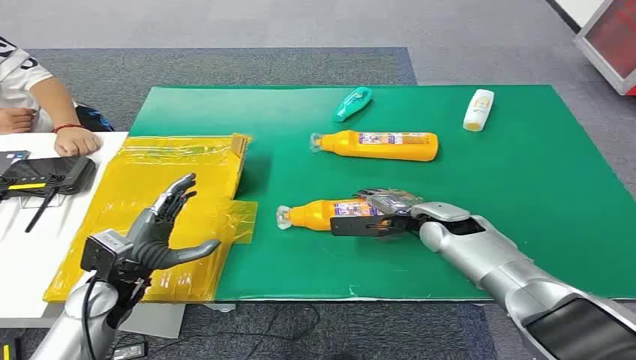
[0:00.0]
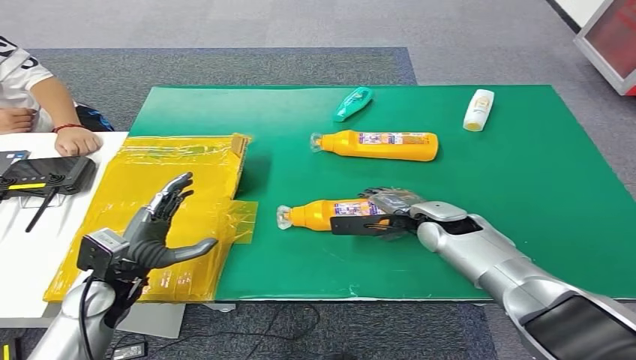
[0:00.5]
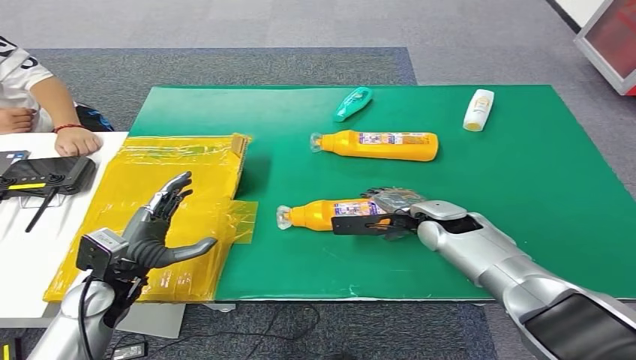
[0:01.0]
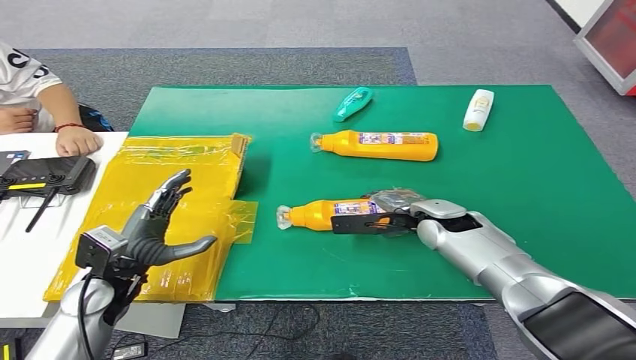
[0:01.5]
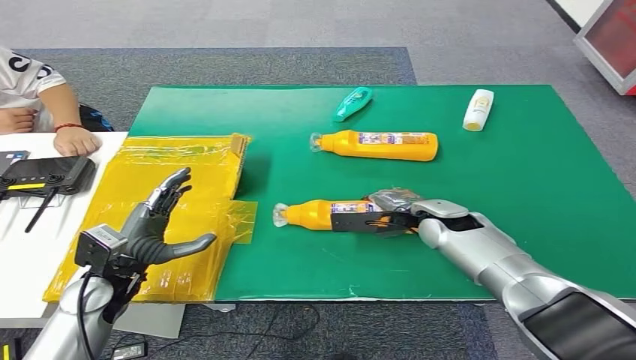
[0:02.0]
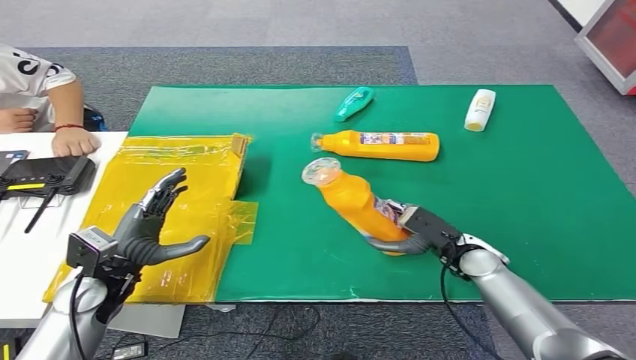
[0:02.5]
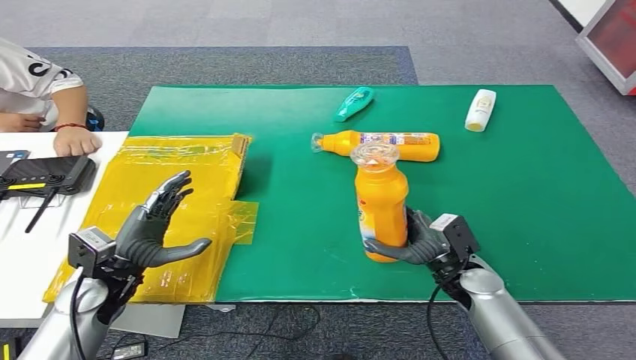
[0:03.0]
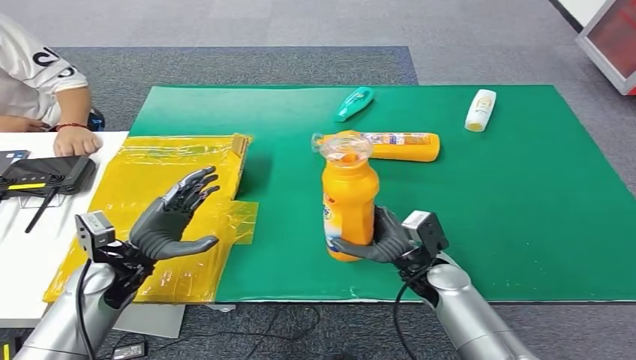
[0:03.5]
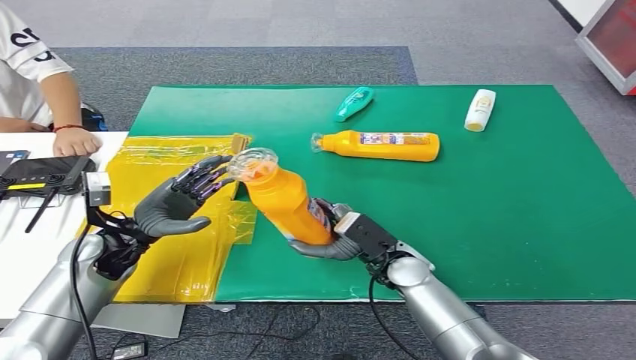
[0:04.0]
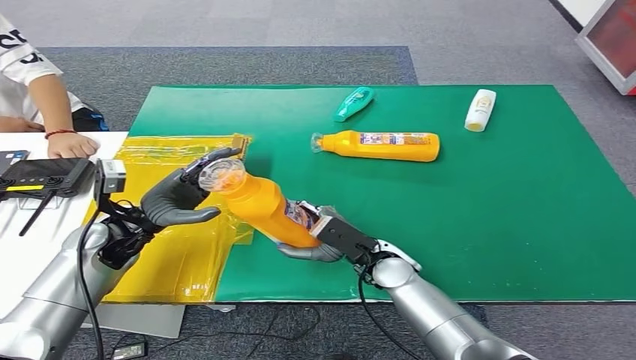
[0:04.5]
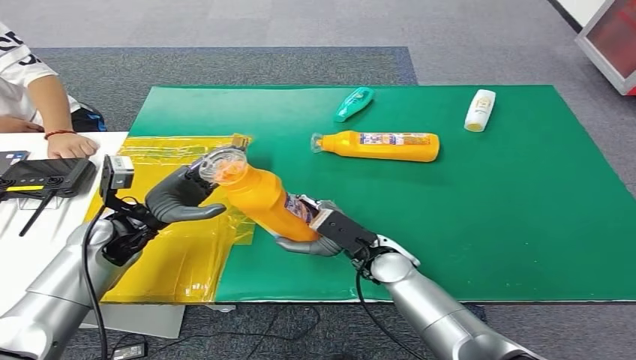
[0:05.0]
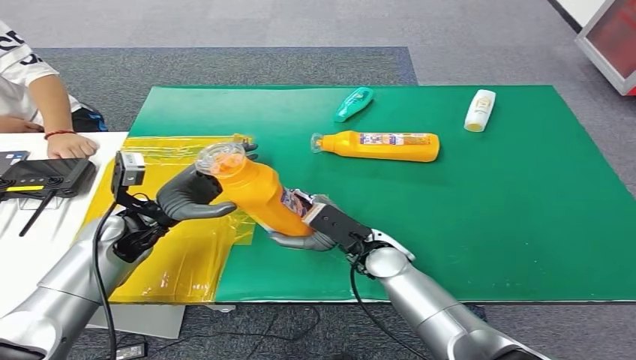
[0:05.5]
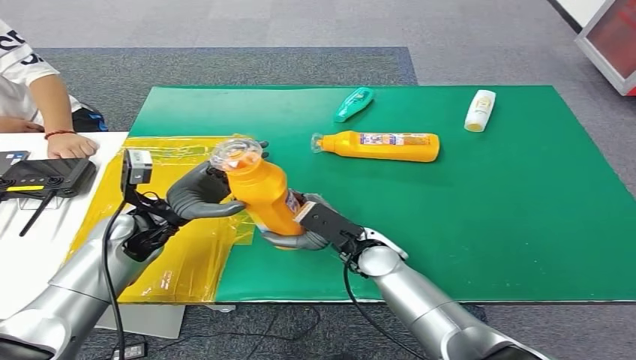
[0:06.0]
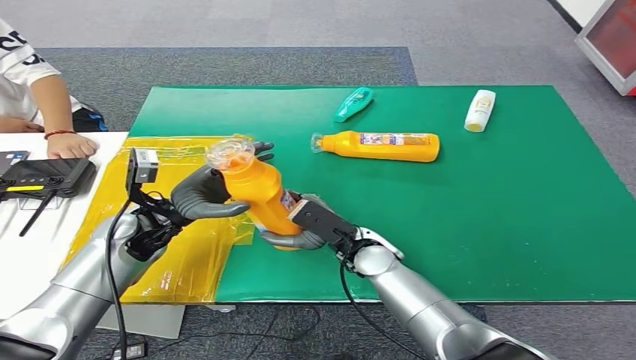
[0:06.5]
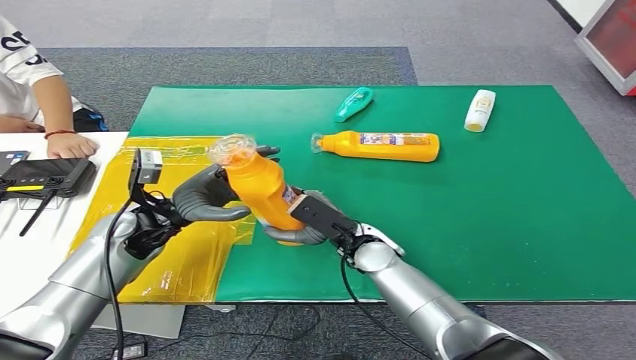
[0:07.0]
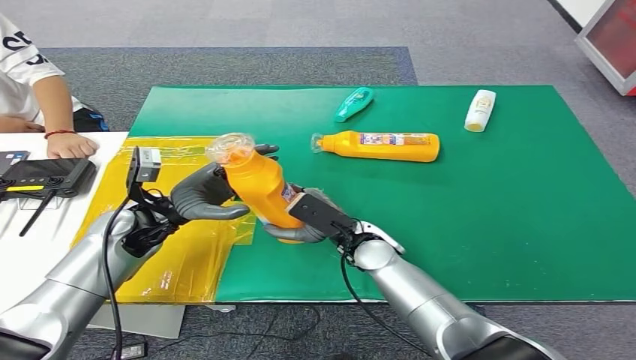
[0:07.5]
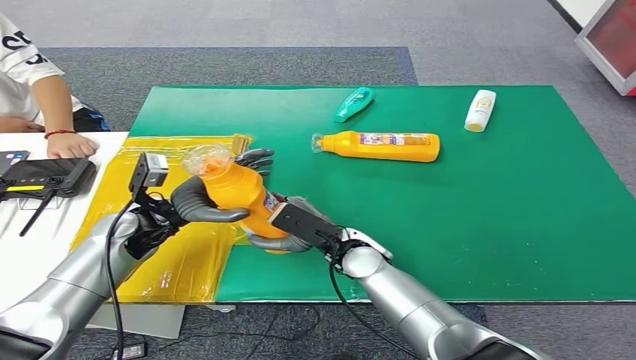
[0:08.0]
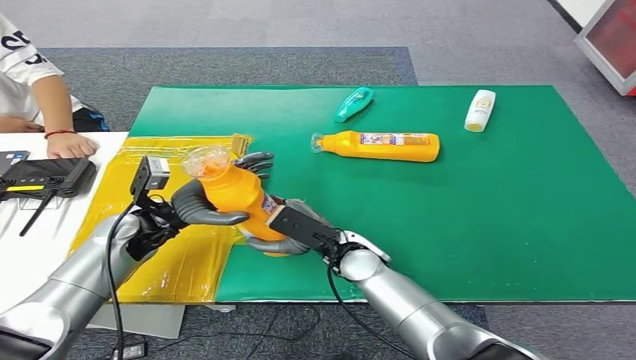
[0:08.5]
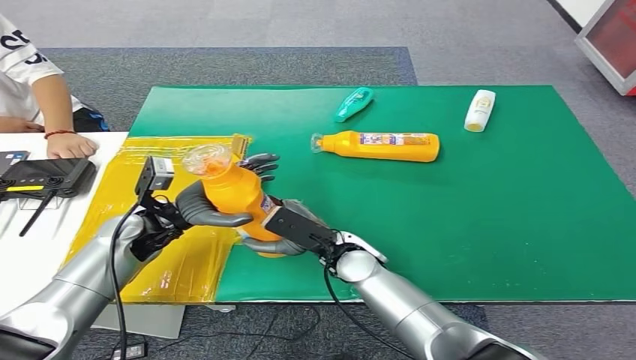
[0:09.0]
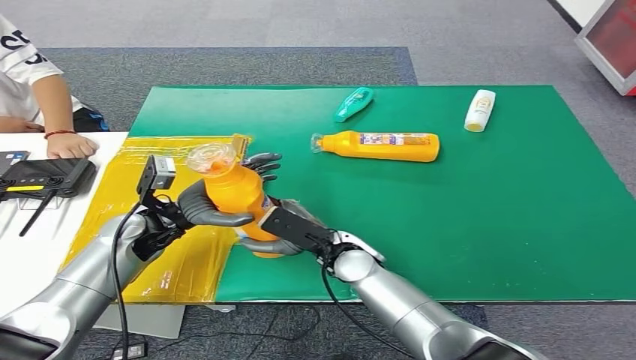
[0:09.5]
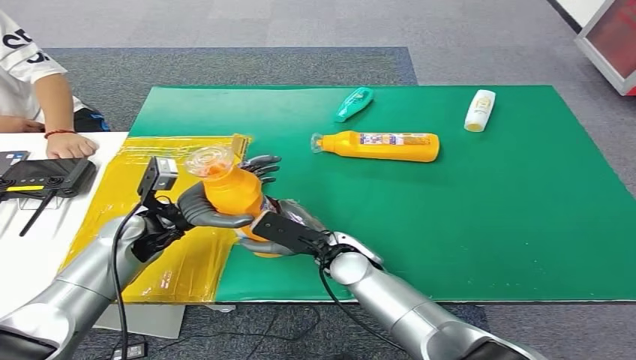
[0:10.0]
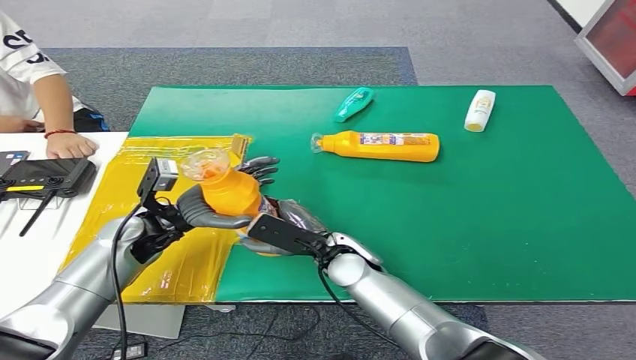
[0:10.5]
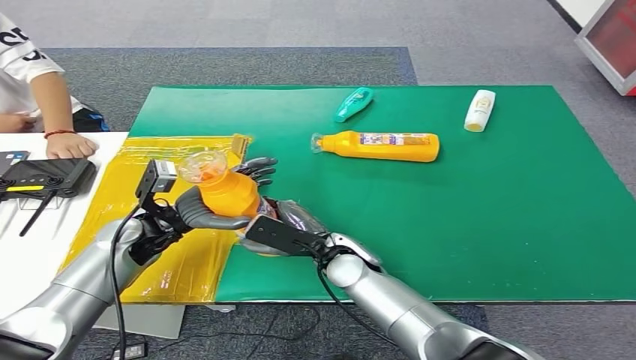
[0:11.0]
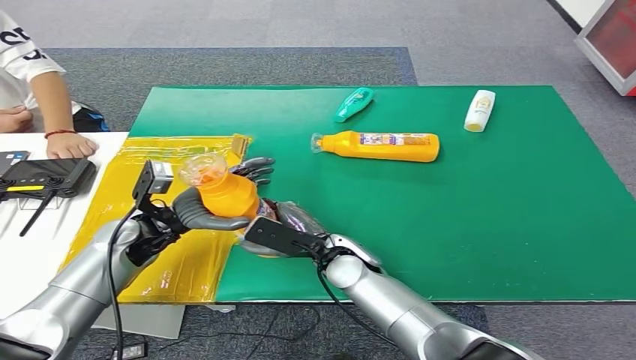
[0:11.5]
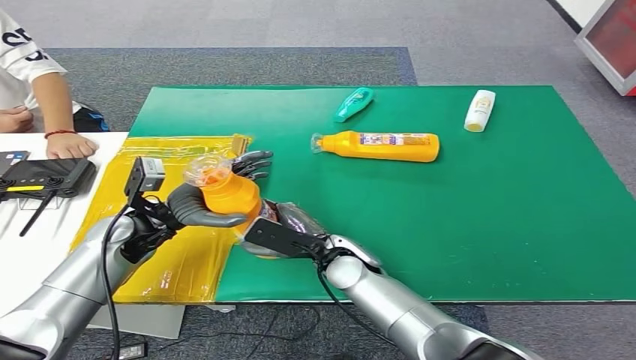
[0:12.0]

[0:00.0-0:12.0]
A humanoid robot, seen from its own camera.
Step, 0:00.0 to 0:02.0: Pick up the bottle from the table.
0:04.0 to 0:06.0: The left hand moves approximately 5 cm.
0:06.0 to 0:12.0: The hands stay close to where they were, moving slightly.

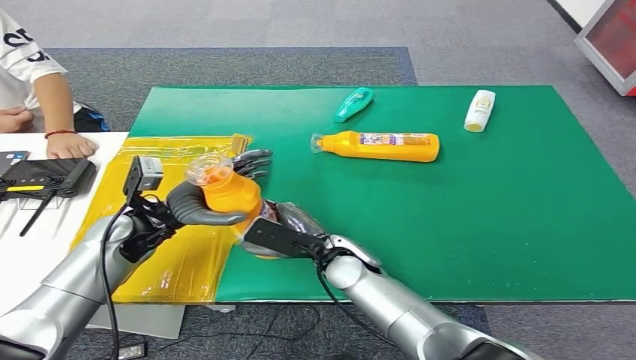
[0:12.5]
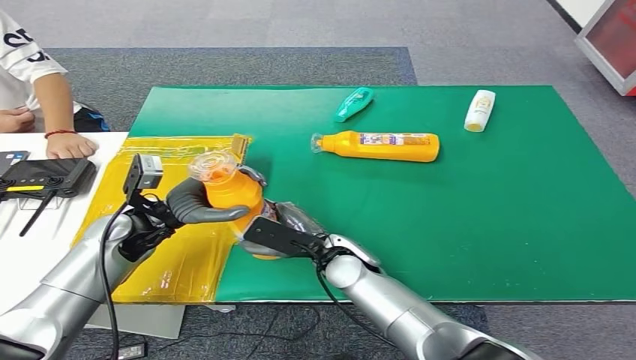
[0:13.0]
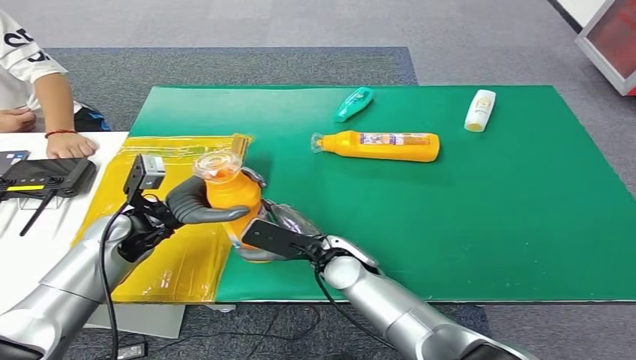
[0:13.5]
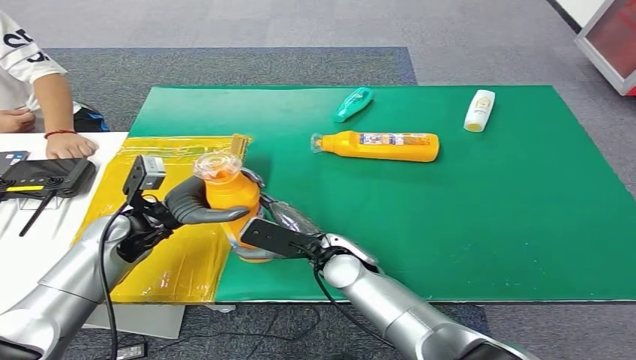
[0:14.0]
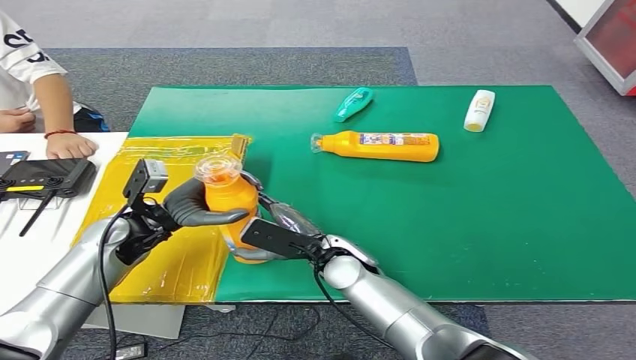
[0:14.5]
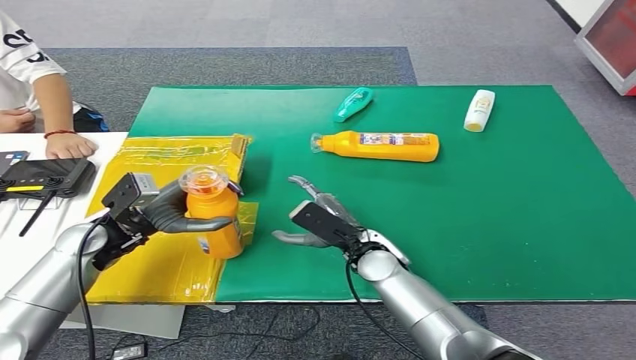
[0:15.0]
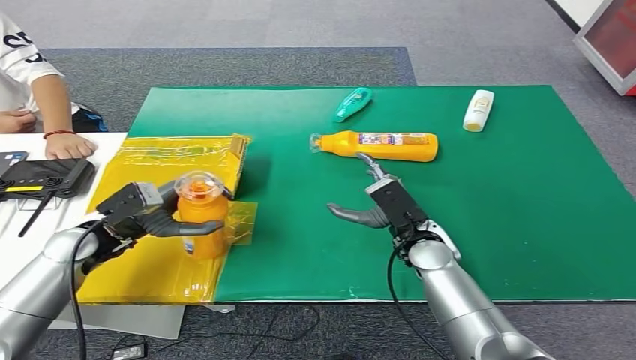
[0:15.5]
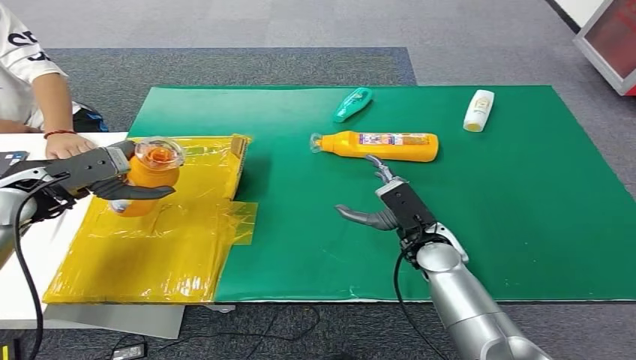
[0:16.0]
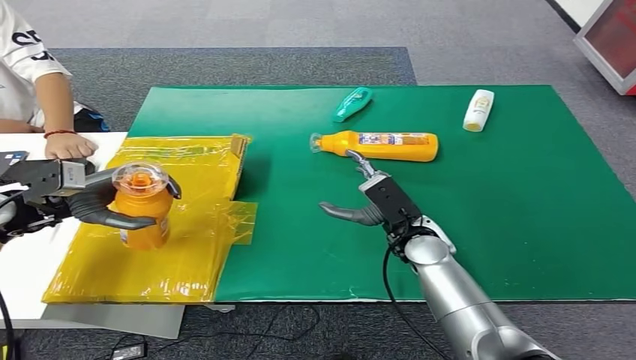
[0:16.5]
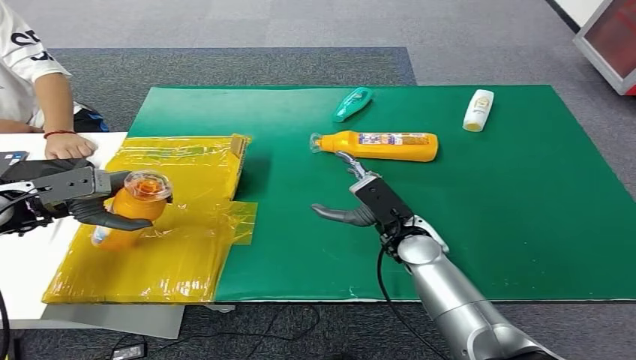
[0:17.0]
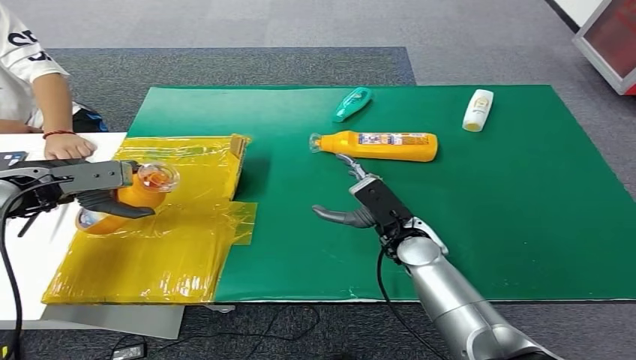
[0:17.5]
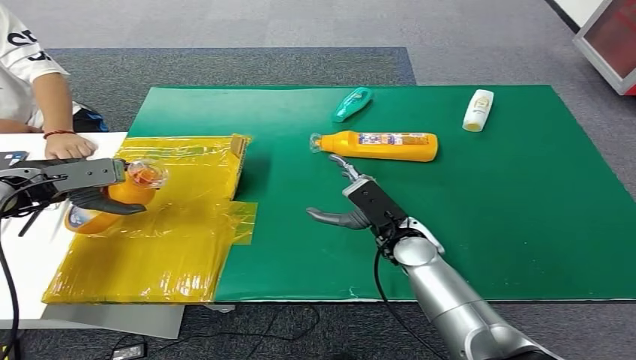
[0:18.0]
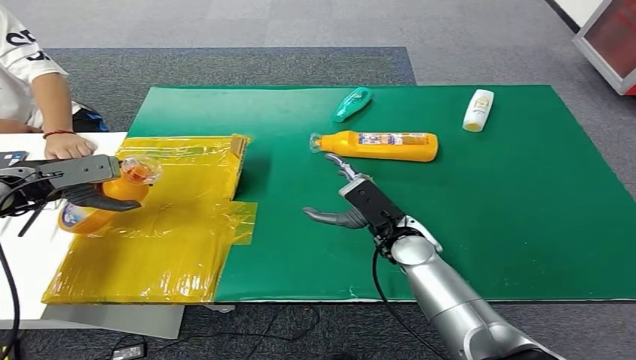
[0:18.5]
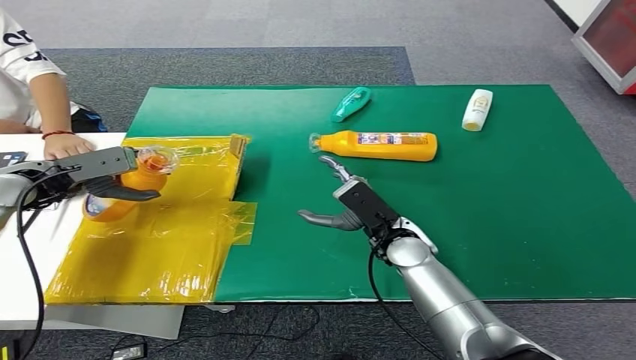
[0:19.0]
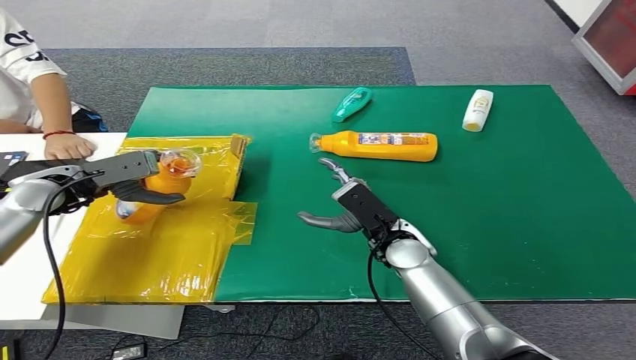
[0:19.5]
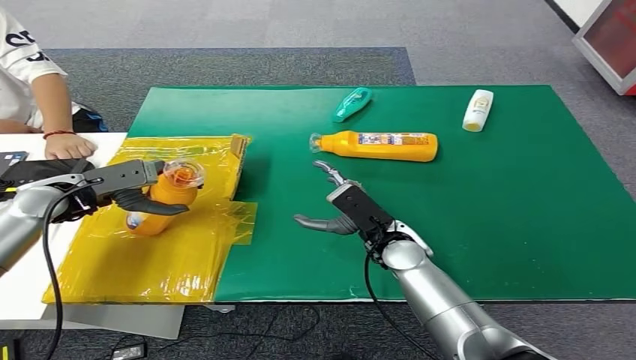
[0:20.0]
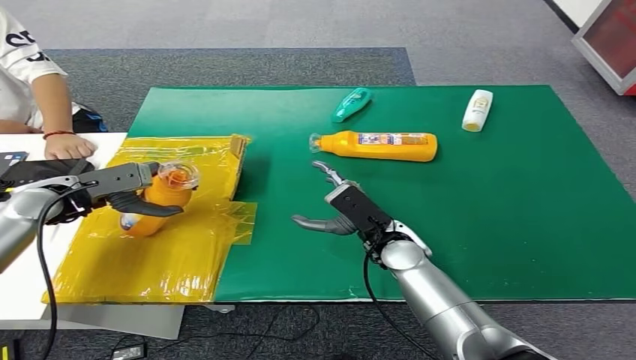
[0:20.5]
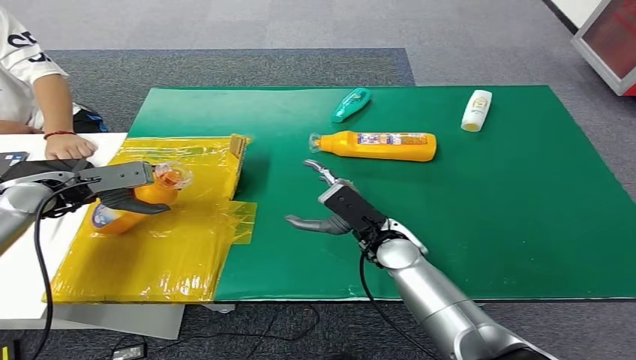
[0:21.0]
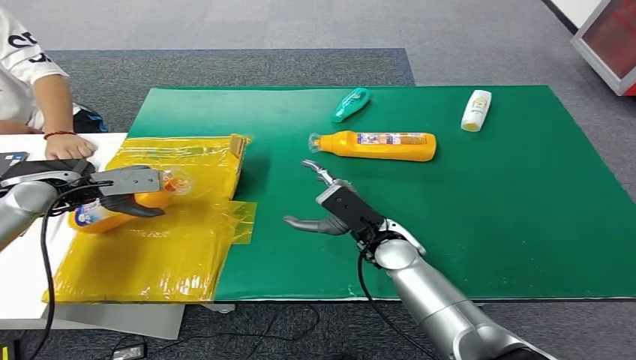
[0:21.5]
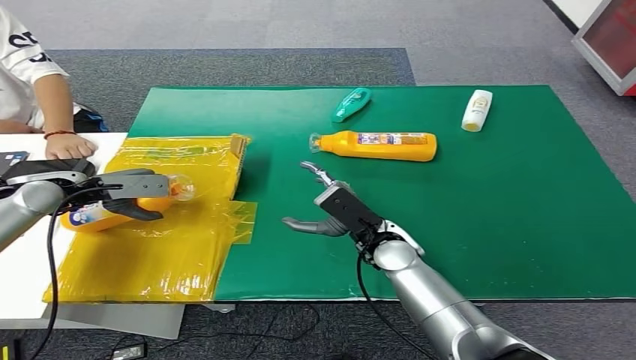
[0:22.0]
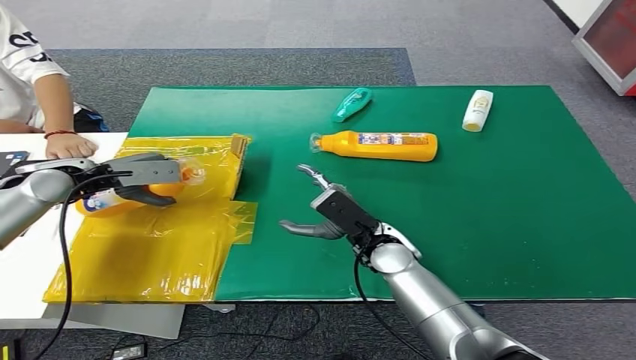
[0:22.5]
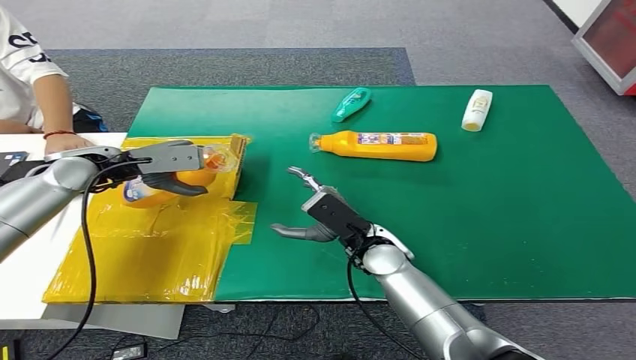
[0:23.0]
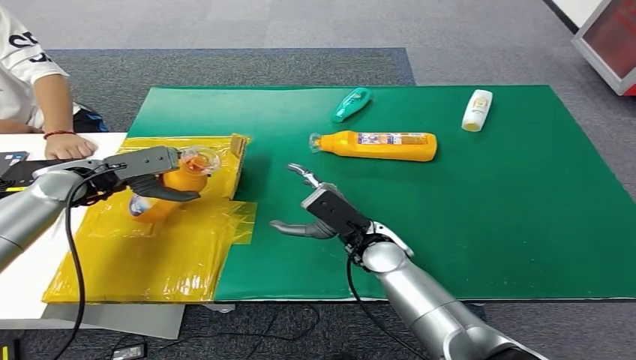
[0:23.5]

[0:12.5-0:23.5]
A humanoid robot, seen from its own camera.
0:12.5 to 0:14.5: Both hands stay put.
0:16.0 to 0:18.0: The left hand shifts by about 5 cm.
0:18.0 to 0:20.0: The left hand heads to the right, covering some 5 cm.
